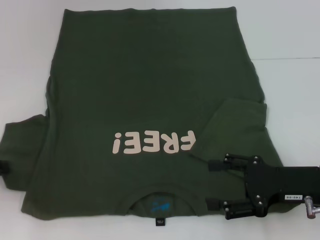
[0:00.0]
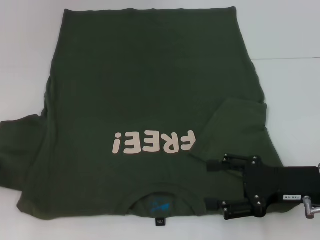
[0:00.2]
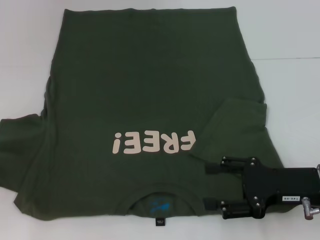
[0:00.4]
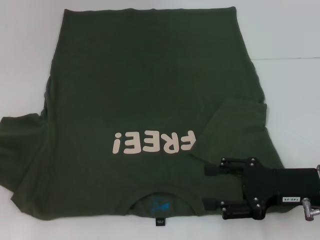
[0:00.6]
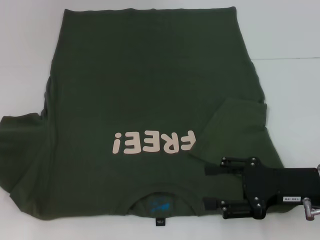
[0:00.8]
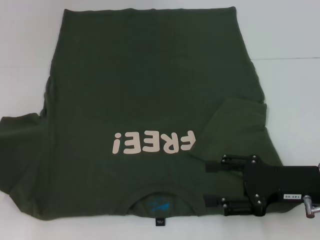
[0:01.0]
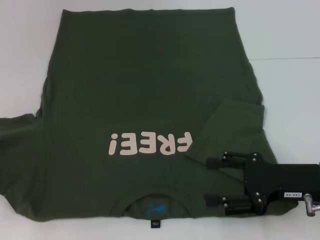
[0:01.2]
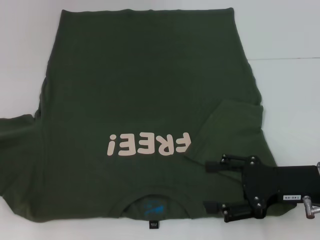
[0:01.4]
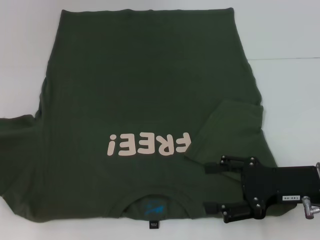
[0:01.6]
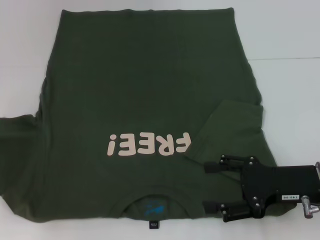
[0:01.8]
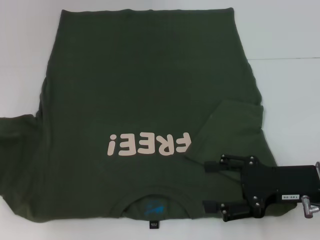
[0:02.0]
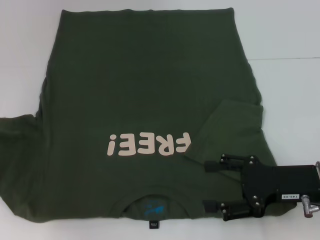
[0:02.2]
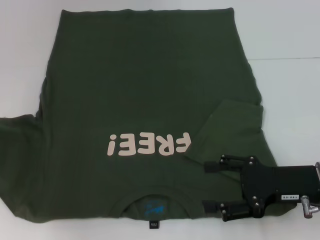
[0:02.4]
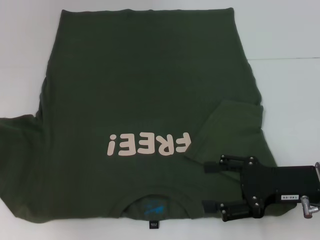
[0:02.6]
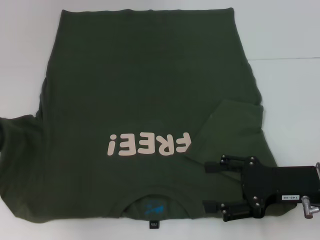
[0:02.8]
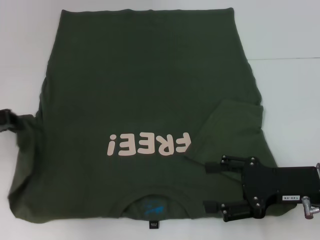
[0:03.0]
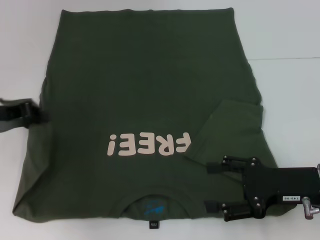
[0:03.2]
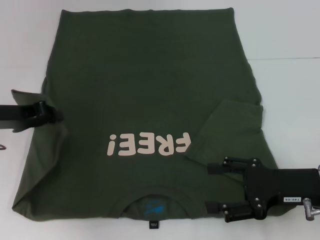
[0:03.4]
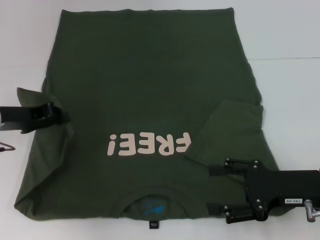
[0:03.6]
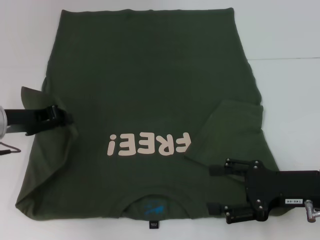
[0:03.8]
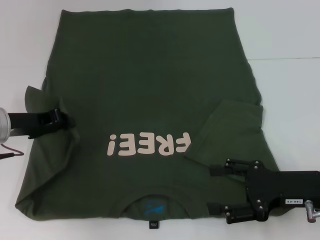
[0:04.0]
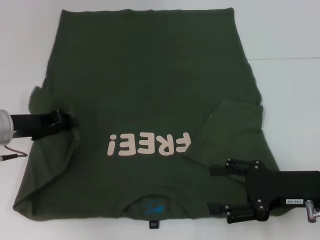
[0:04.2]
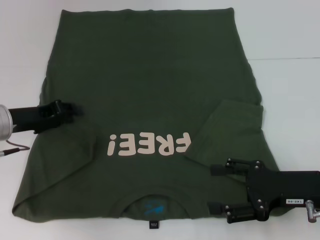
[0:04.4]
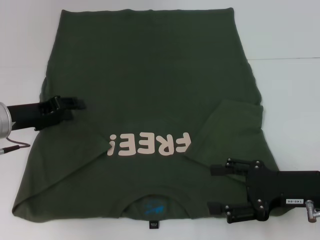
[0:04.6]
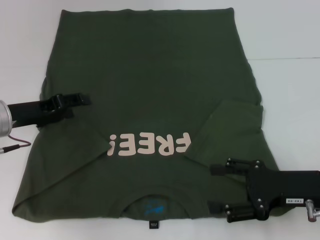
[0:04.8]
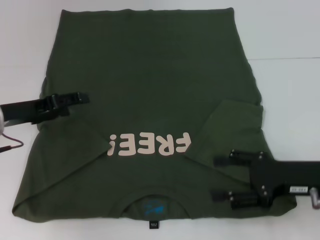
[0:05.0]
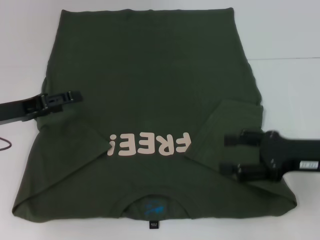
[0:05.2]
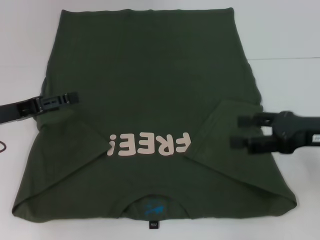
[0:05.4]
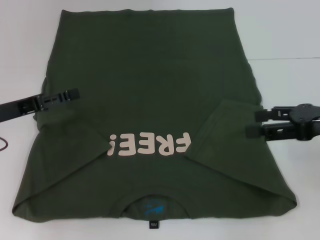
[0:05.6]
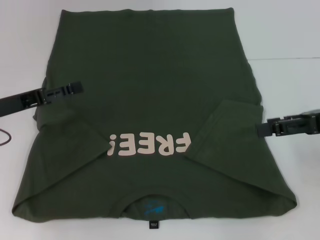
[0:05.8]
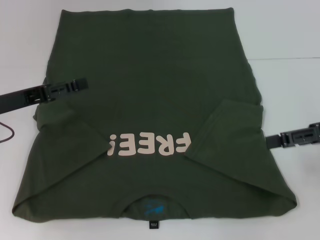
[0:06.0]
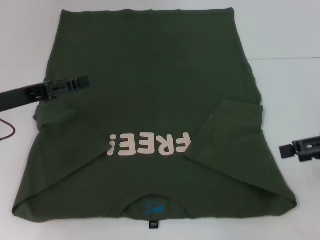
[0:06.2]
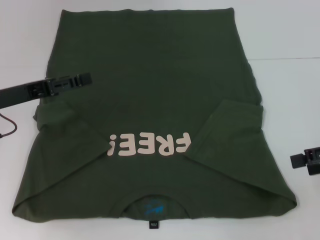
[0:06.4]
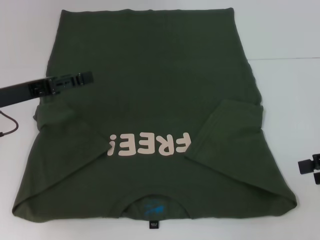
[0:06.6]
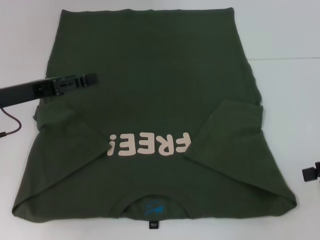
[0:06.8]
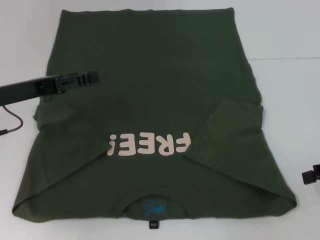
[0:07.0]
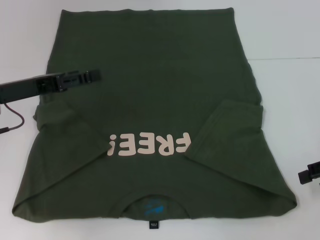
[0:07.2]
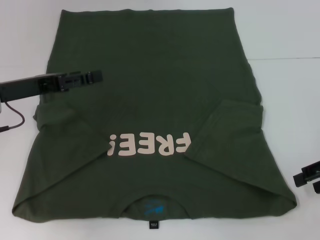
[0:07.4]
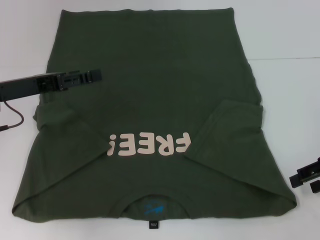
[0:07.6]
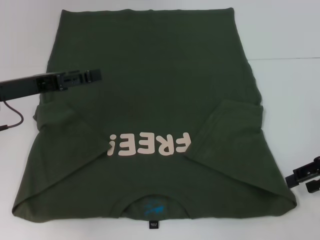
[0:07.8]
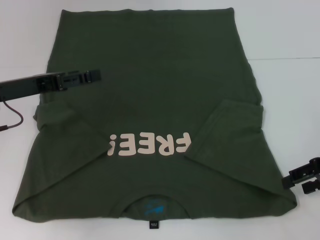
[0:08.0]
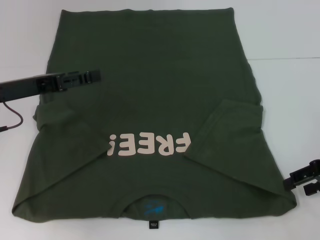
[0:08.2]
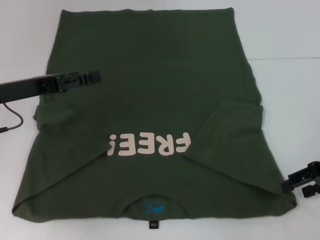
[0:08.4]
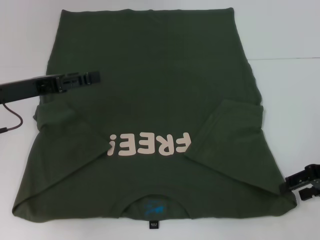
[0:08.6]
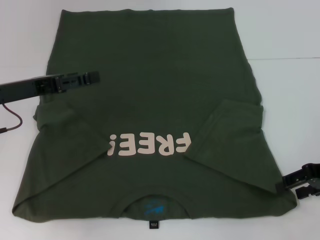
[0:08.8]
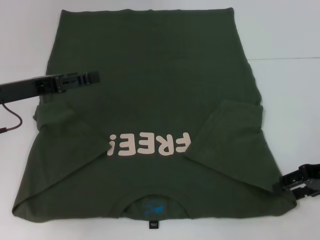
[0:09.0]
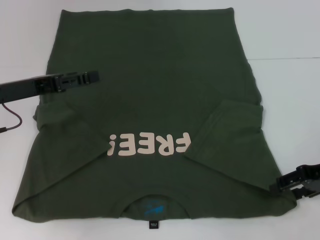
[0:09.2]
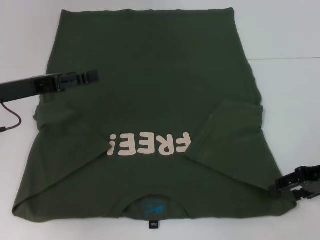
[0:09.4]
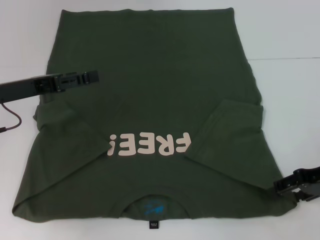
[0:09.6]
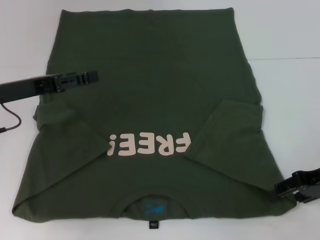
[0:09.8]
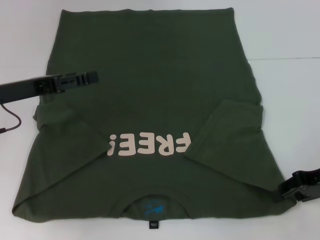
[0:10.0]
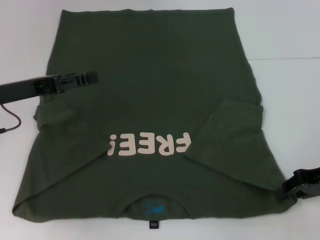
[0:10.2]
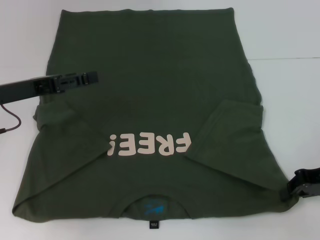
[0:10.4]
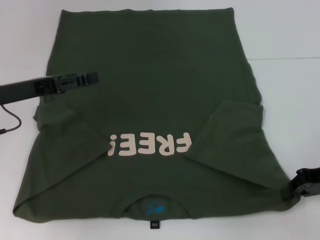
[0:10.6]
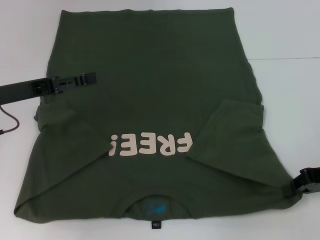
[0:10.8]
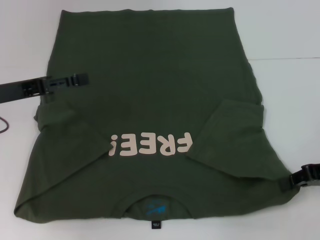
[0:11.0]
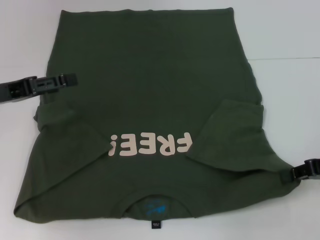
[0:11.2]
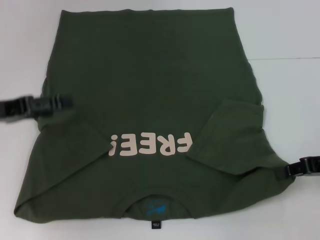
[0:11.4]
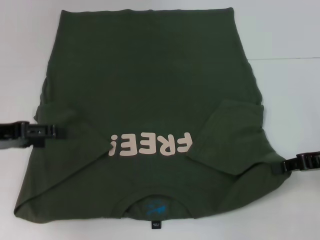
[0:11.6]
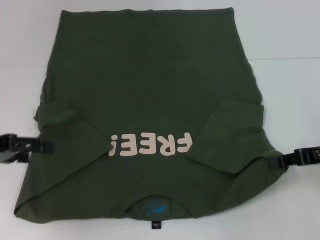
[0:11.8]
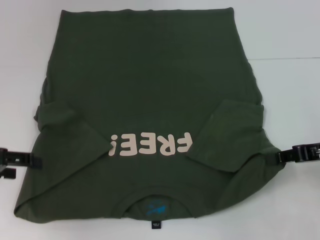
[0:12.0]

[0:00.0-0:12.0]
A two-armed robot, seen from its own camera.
Step, 0:00.0 to 0:04.4: Fold the bottom left sleeve with your left hand.
Step, 0:04.6 to 0:10.2: Grab the bottom right corner with your right hand.
0:00.0 to 0:01.6: The grippers make only small movements.
0:01.6 to 0:03.0: The left gripper goes approximately 5 cm to the right.
0:03.0 to 0:04.4: The left gripper shifts by some 5 cm.
0:04.4 to 0:06.0: The right gripper moves upward and to the right, roughly 10 cm, while the left gripper opens up.
0:06.0 to 0:07.6: The right gripper changes place by roughly 5 cm.
0:07.6 to 0:09.0: The grippers move only a little.
0:09.0 to 0:10.4: The right gripper closes its fingers.
0:10.4 to 0:12.0: The left gripper heads backward and to the left, covering about 10 cm.

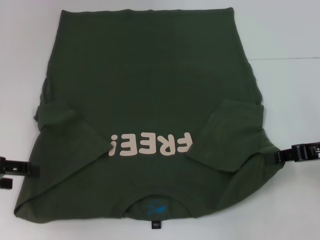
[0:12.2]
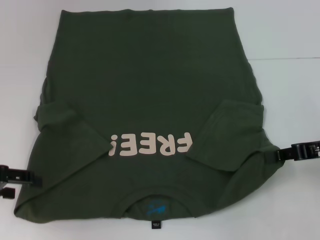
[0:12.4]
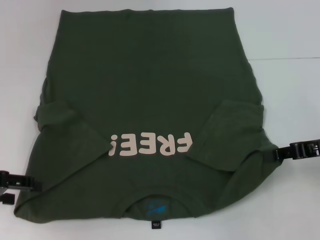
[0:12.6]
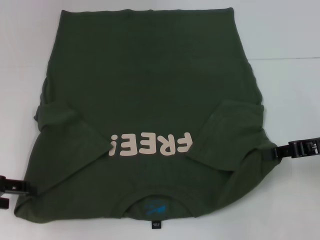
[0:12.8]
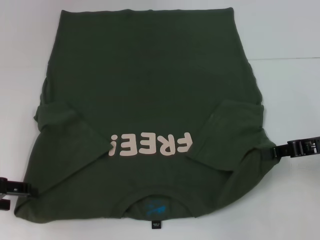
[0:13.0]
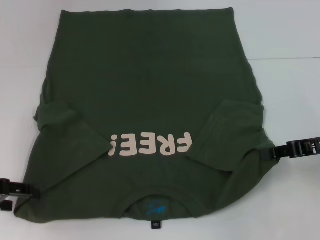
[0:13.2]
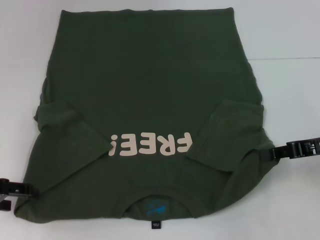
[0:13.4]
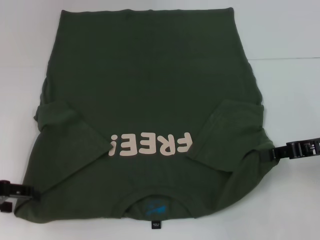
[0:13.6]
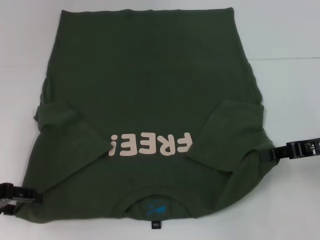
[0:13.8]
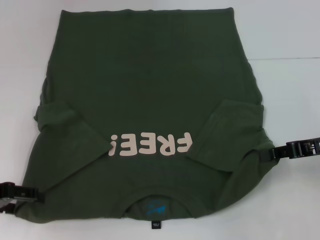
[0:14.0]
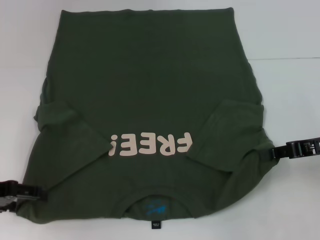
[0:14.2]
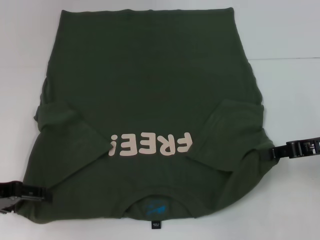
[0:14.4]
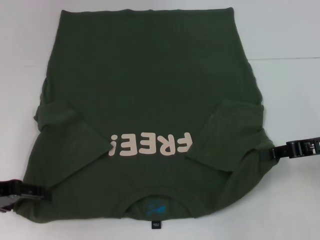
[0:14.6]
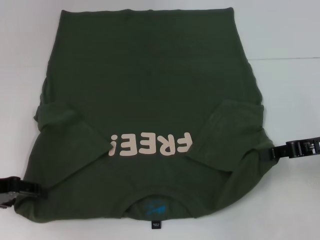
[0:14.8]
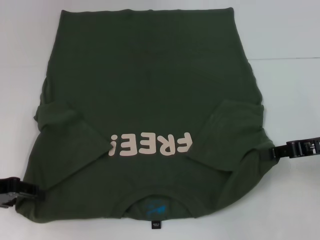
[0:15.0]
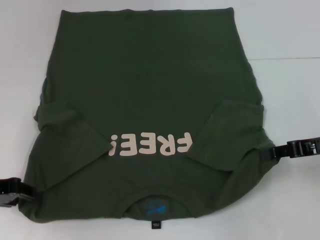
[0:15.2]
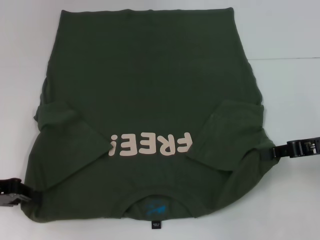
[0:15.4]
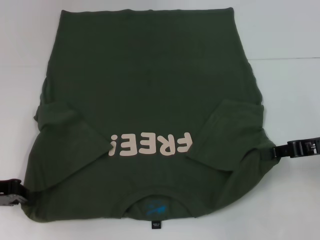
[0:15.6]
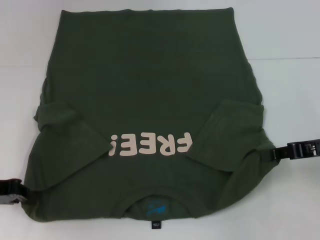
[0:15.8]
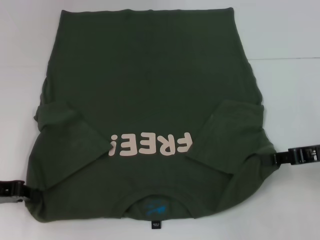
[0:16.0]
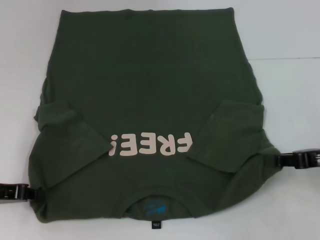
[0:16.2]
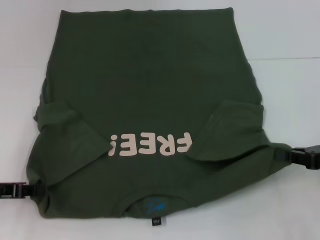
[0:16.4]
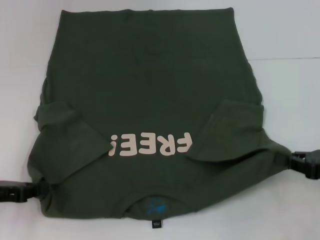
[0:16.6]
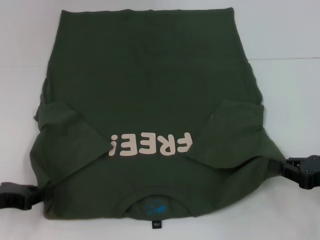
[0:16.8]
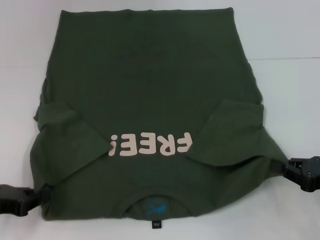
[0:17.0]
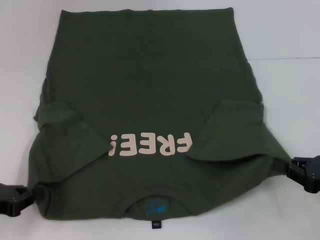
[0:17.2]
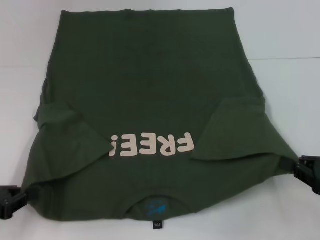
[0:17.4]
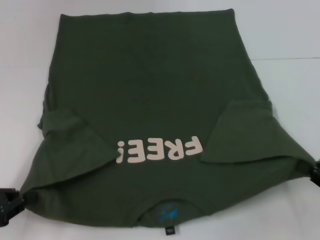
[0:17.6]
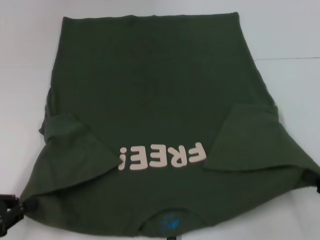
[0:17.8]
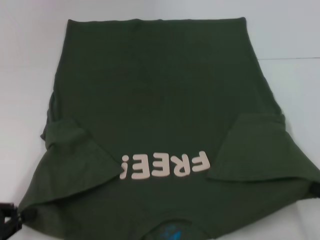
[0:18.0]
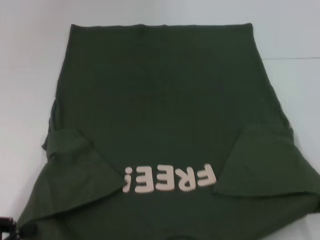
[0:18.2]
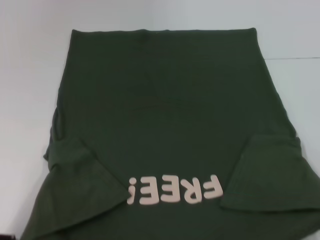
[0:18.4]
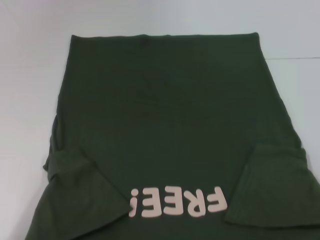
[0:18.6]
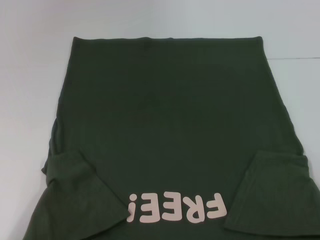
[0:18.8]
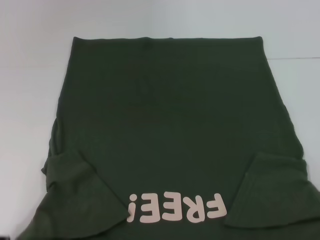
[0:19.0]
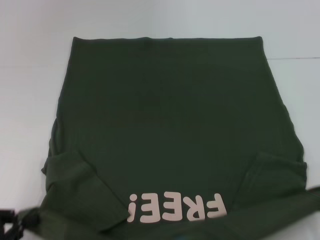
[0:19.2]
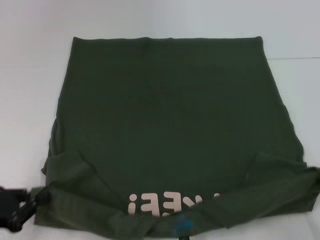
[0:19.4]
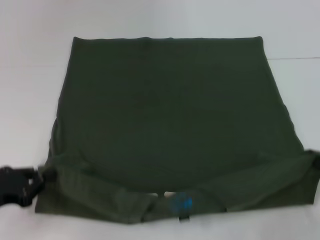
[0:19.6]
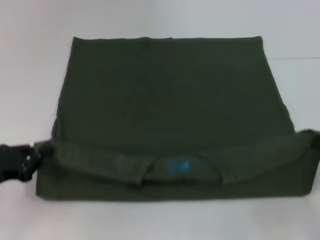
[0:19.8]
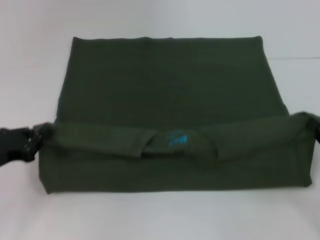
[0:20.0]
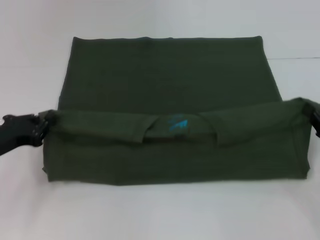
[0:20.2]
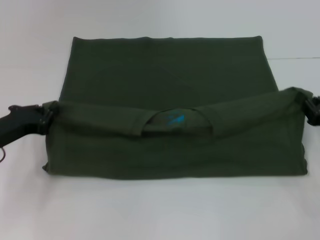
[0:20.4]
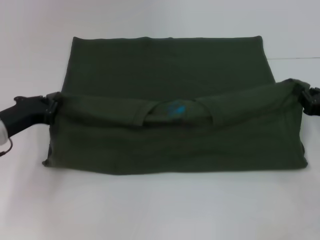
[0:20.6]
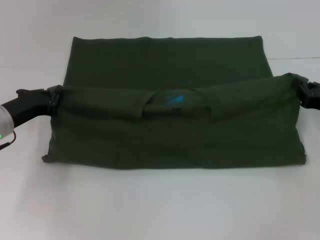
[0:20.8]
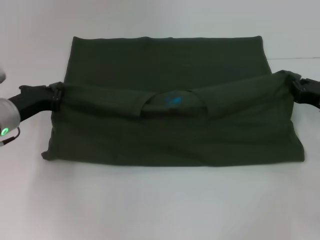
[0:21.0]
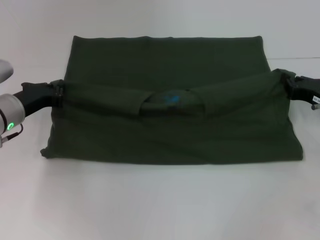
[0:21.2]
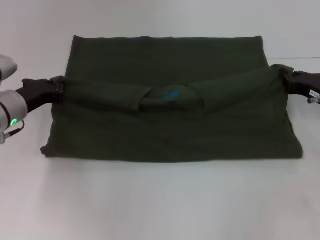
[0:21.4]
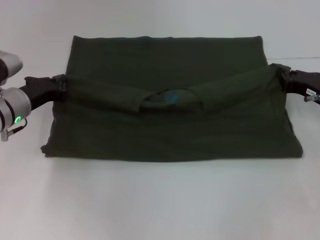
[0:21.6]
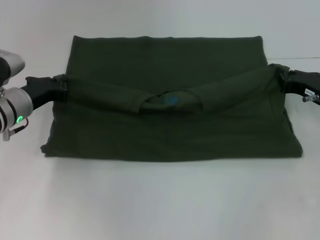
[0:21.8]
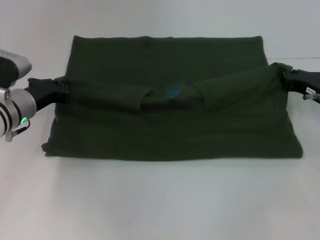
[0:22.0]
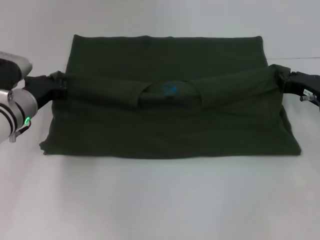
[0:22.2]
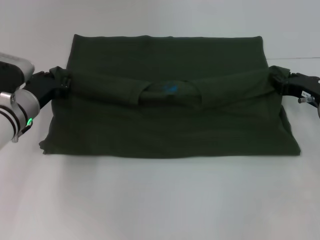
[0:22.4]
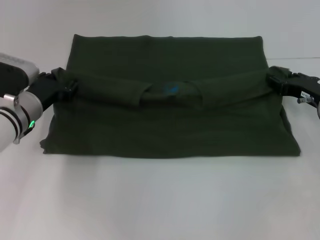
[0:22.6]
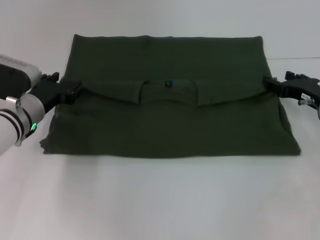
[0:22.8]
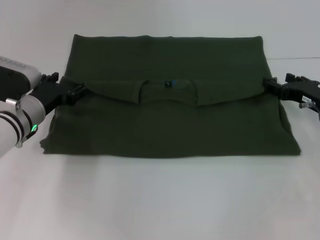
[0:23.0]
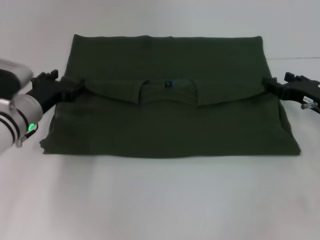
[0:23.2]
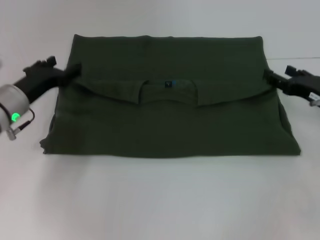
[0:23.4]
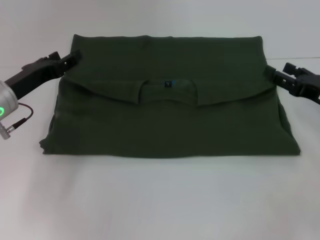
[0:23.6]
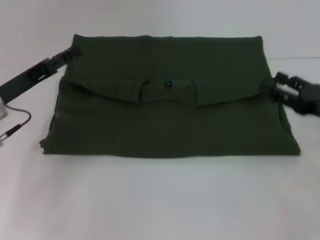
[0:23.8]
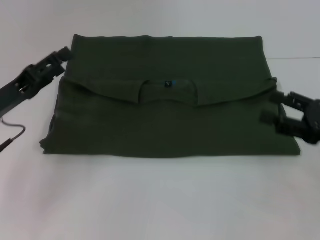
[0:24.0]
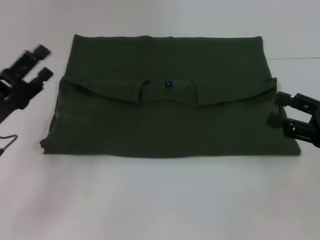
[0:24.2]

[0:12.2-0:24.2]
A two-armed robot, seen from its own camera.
Step, 0:12.2 to 0:16.2: Grab the bottom left corner with your left hand.
Step, 0:16.4 to 0:22.8: Fold the clothes with your left hand.
Step, 0:16.4 to 0:22.8: Fold the clothes with your right hand.
0:12.2 to 0:13.8: There are only small adjustments of the grippers.
0:13.8 to 0:15.2: Both grippers stay about where they are.
0:15.2 to 0:16.6: The right gripper travels backward by approximately 5 cm, while the left gripper closes.
0:16.6 to 0:18.2: The right gripper travels backward by approximately 15 cm, while the left gripper travels backward by some 10 cm.
0:18.2 to 0:19.8: The two grippers go about 10 cm forward.
0:19.8 to 0:21.2: The left gripper is displaced forward and to the right by approximately 15 cm. The right gripper travels forward by roughly 15 cm.
0:21.2 to 0:22.6: The right gripper opens its fingers, while the left gripper opens.
0:22.6 to 0:24.2: The left gripper moves backward and to the left, some 10 cm, and opens up; the right gripper is displaced backward and upward by about 15 cm, and opens its fingers.
